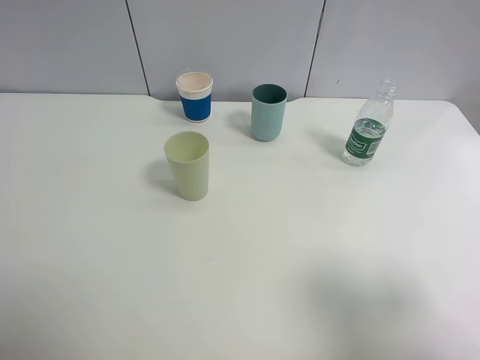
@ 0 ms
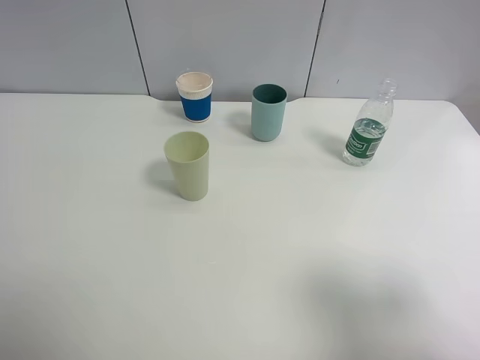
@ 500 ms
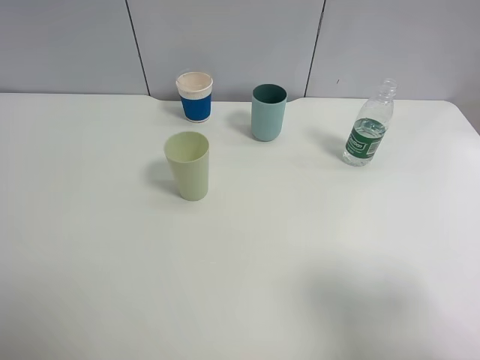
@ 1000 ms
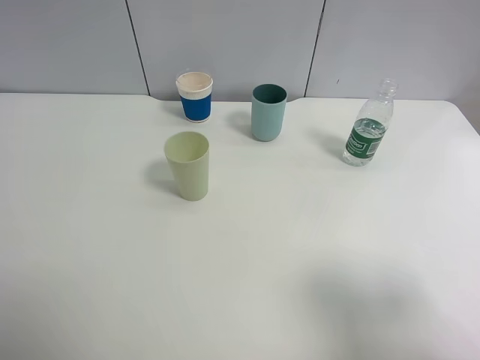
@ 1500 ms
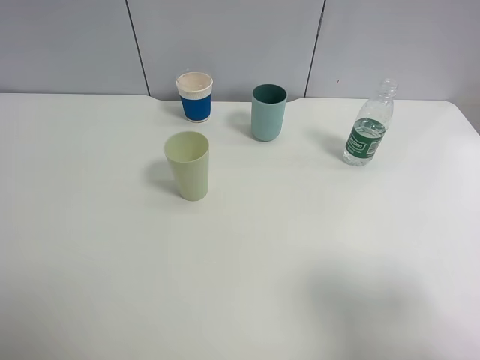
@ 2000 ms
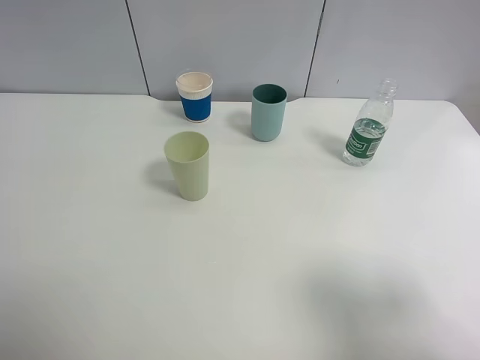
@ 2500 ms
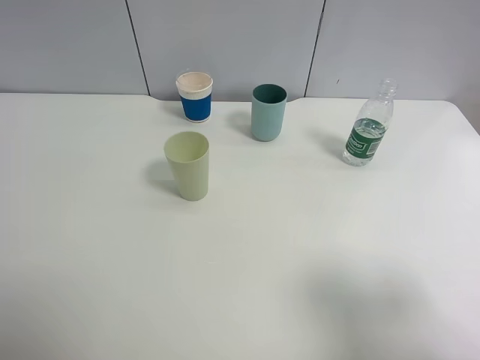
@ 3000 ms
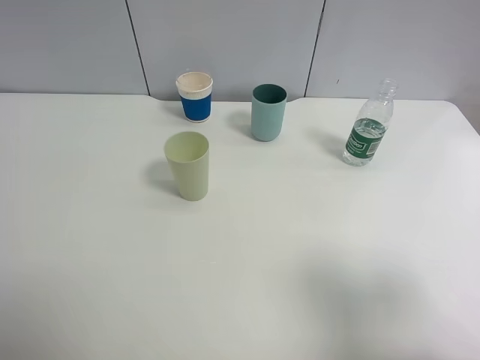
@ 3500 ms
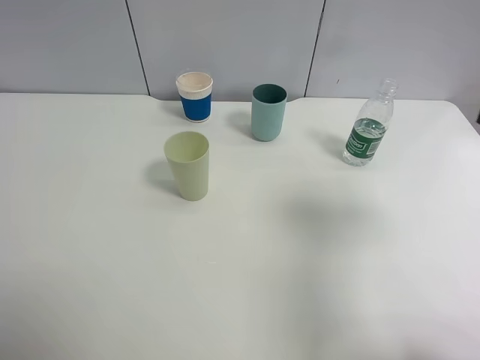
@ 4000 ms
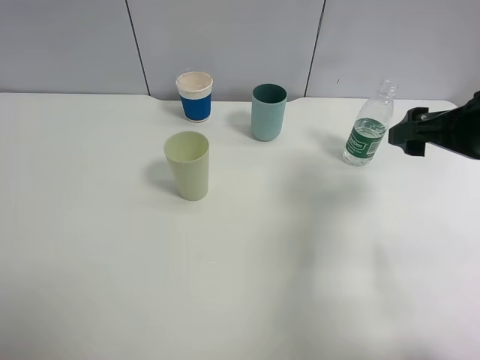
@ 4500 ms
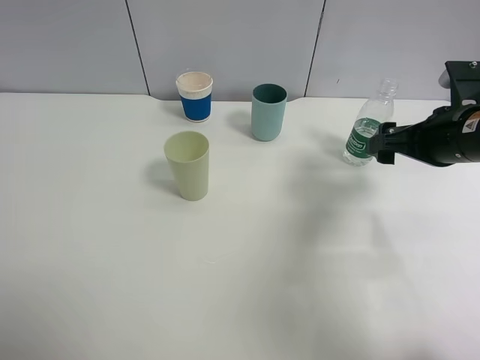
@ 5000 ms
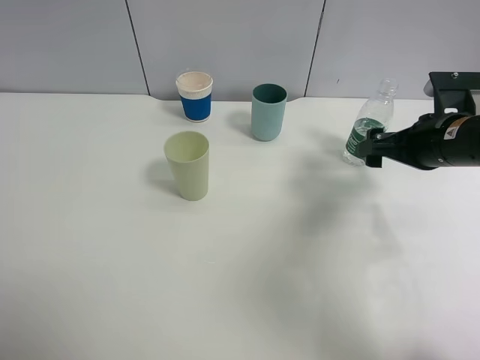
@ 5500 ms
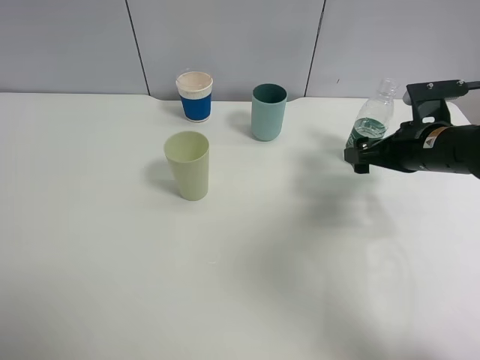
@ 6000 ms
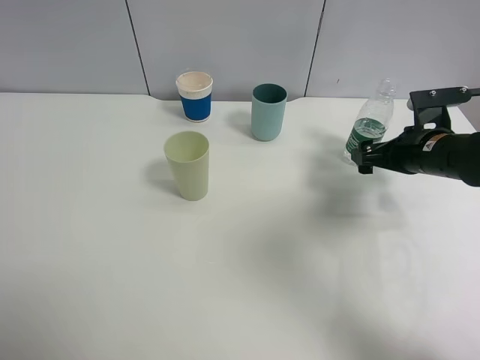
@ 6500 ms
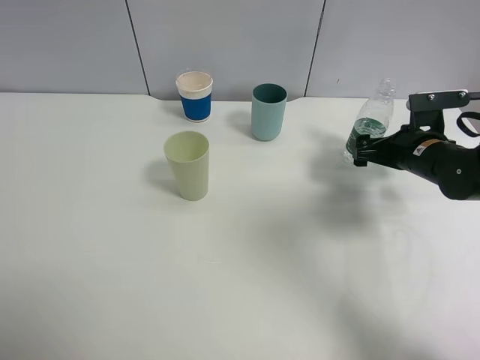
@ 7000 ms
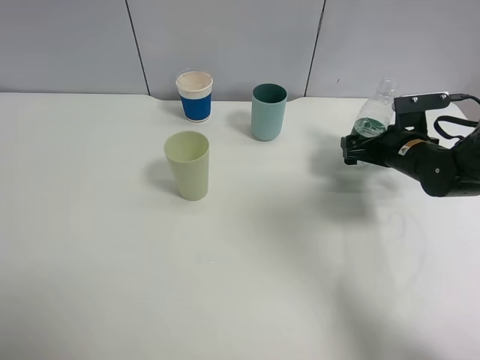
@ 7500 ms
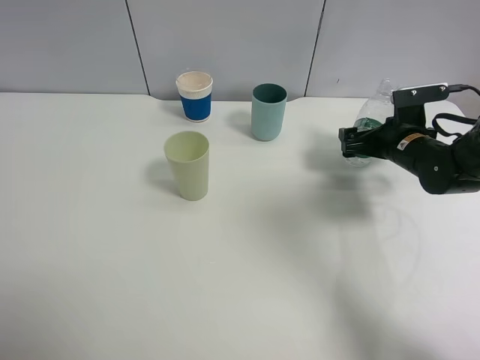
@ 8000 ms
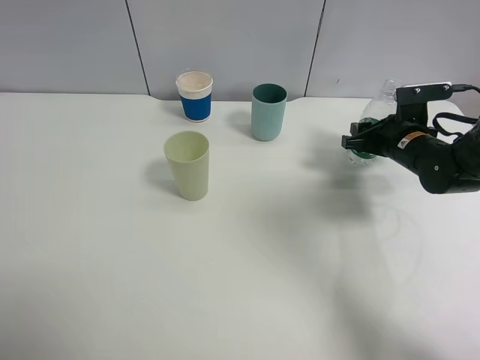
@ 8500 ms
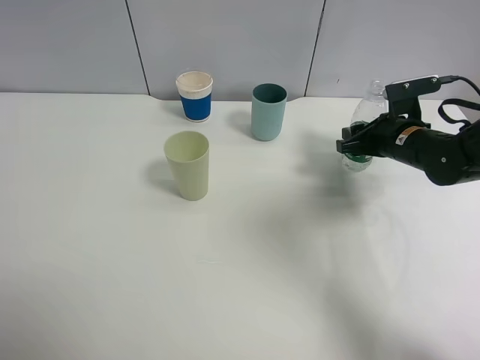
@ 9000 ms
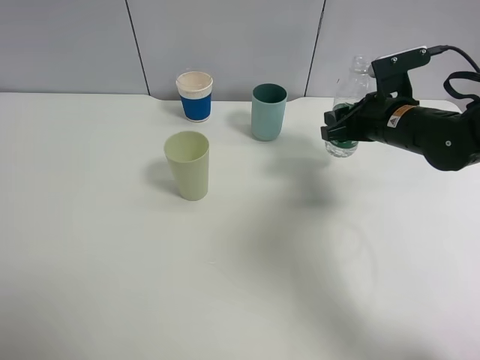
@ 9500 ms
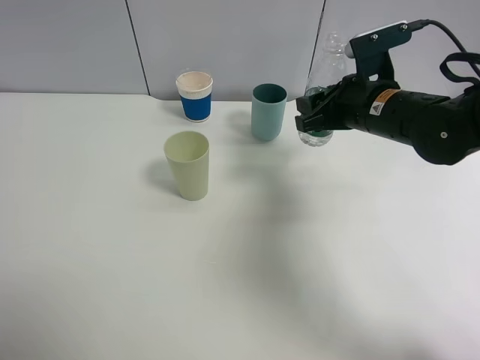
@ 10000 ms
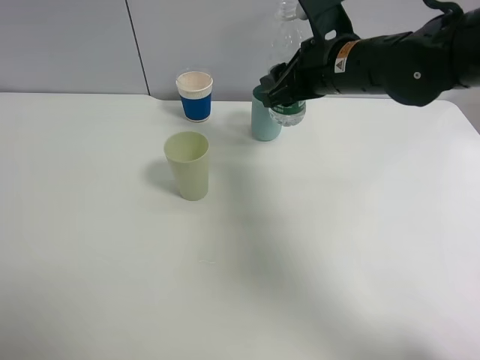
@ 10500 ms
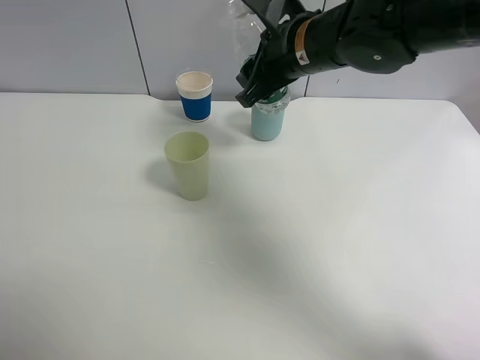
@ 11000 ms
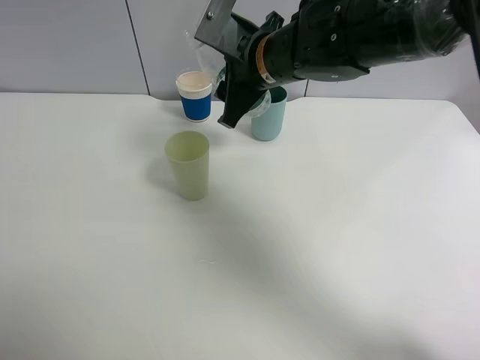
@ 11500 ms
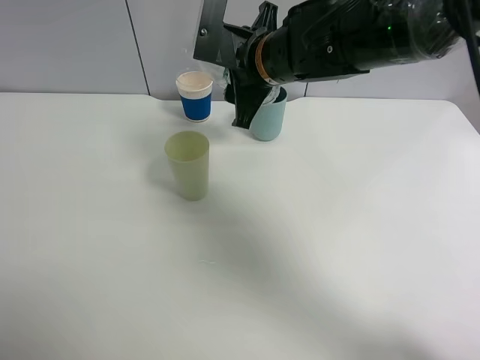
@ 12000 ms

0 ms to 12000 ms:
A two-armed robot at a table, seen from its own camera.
Task of the whole recording: use a clamp to hold the bottle of the drink, pour the beverage into a random cup, then clamp the cup containing the drink and pour the drink into another random cup.
Step, 0 ms to 9500 ms: Pick up the water bottle with right gripper.
0 ms to 2000 ms: The two grippers keep their place.
2000 ms to 4000 ms: The right gripper moves forward, some 15 cm.
4000 ms to 6000 ms: The right gripper travels downward and forward by some 20 cm.
6000 ms to 8000 ms: The right gripper travels forward and downward by about 10 cm.
8000 ms to 10000 ms: The right gripper is displaced to the left and upward by roughly 15 cm, and closes up.
10000 ms to 12000 ms: The right gripper travels to the left by approximately 15 cm.

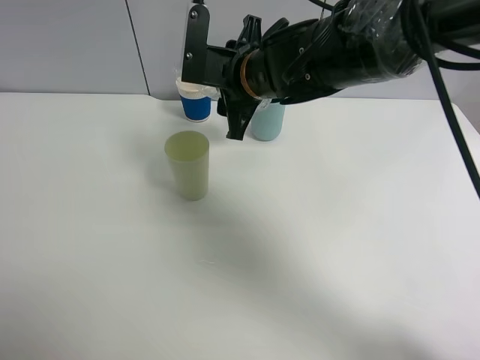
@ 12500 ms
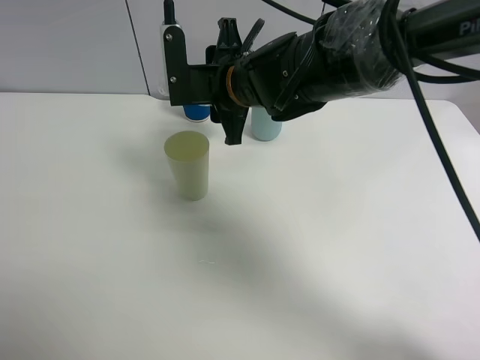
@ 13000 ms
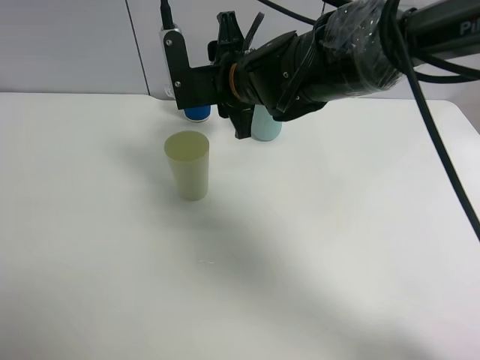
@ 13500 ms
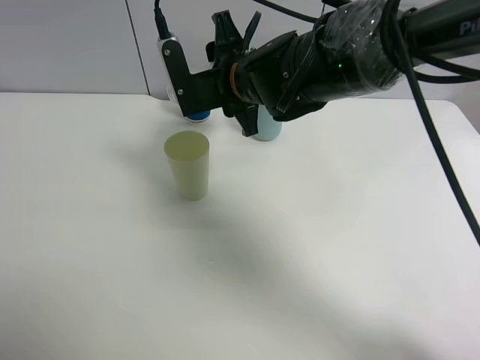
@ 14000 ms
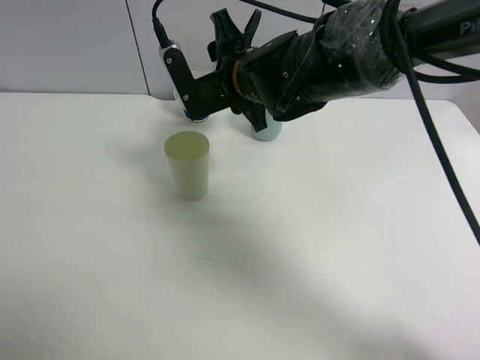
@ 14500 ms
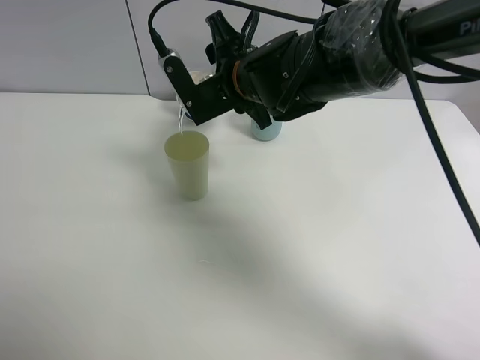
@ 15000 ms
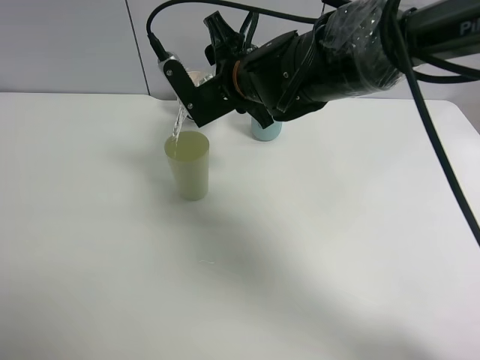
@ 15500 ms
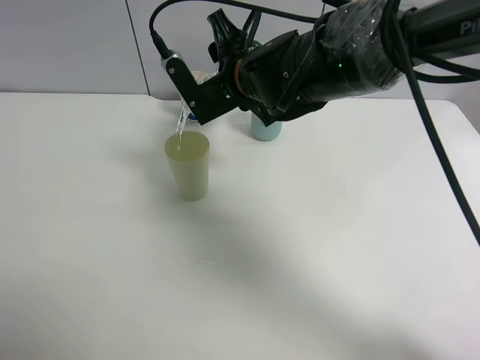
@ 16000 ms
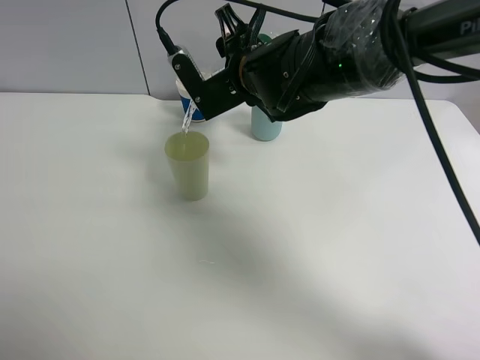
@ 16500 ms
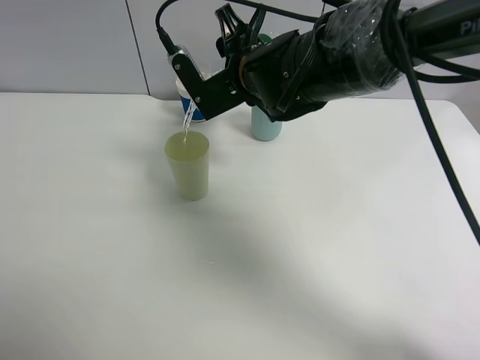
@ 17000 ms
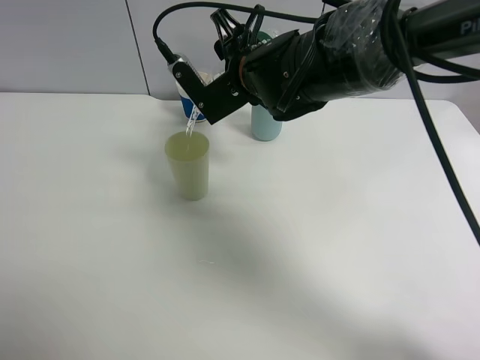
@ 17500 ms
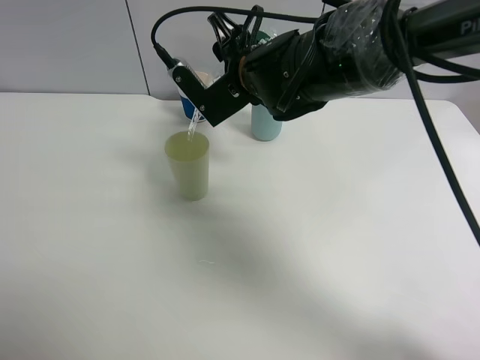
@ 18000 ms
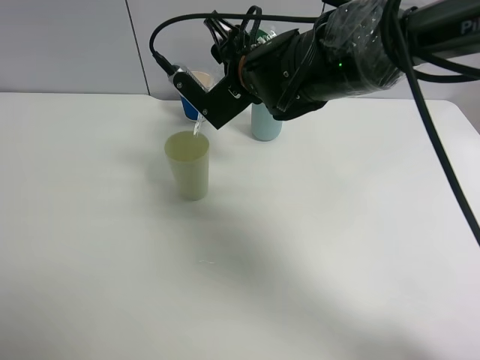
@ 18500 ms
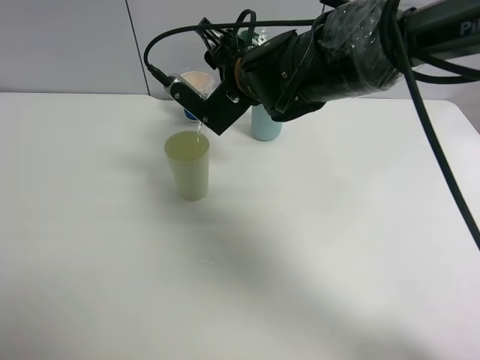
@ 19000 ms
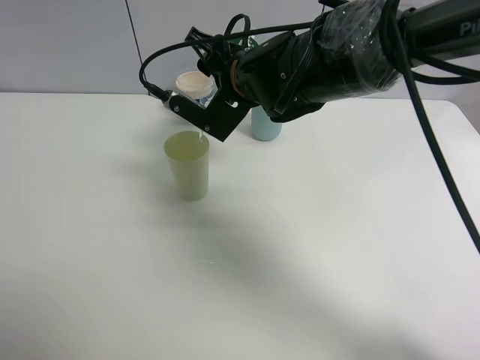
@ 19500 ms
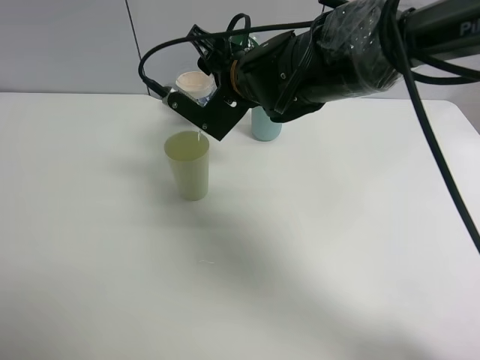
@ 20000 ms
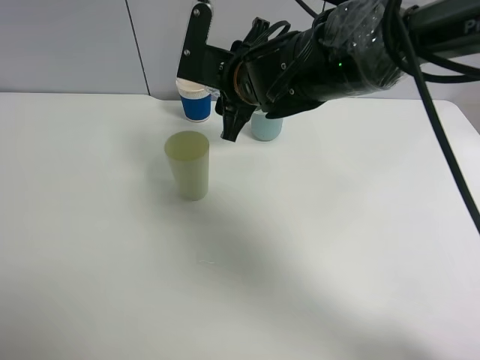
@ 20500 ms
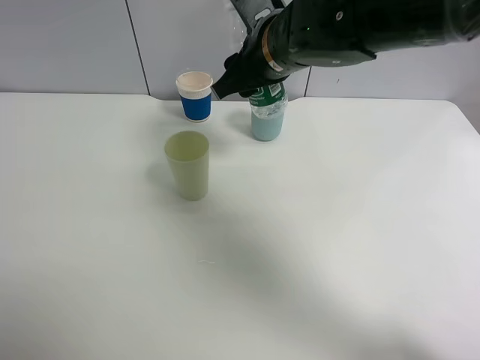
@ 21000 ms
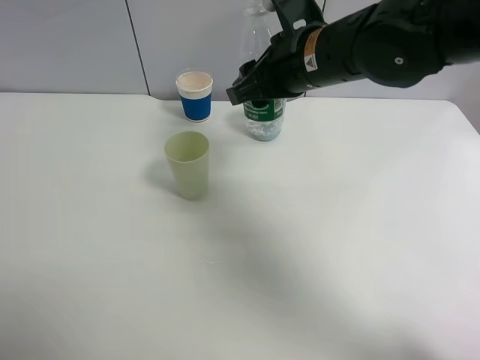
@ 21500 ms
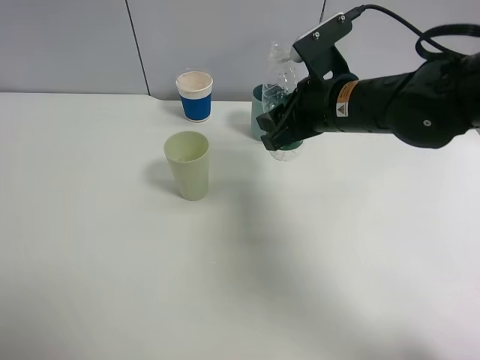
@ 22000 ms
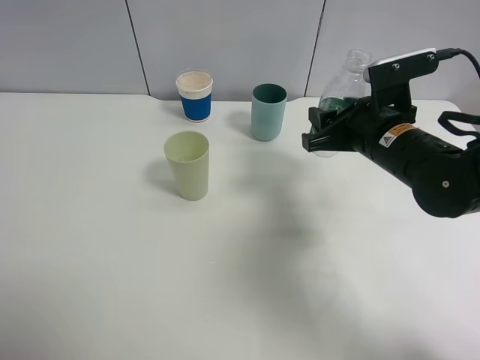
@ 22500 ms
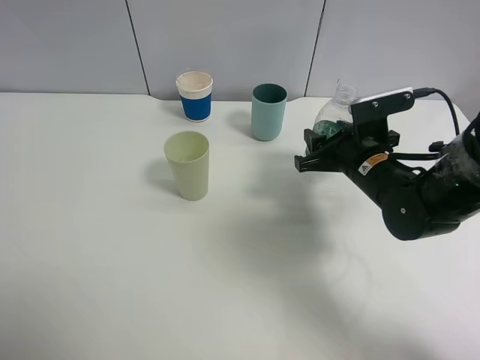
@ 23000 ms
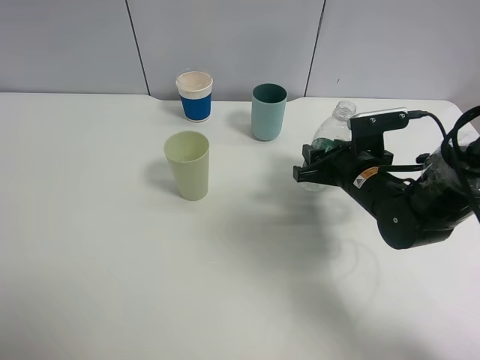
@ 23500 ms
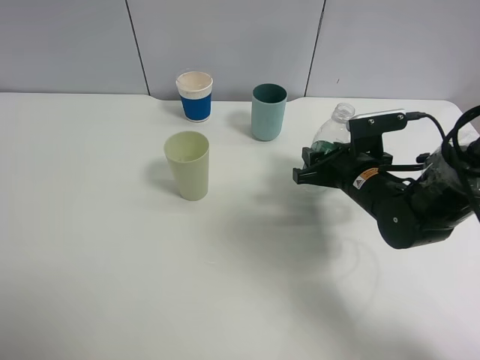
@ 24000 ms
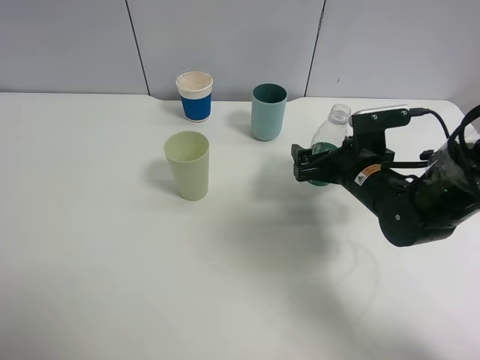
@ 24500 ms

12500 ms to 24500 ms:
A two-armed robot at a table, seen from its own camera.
Task of the whole recording: use a clamp to hold the bottle of the drink, pour the beverage into a random cup, then clamp the cup containing the drink and pour the drink into another random cup.
Step, 12500 ms to 20500 ms: Pour water into the green plastic cup with right gripper.
14500 ms to 16500 ms: The grippers stay close to where they were, moving slightly.
16500 ms to 18500 ms: The grippers stay close to where they were, moving slightly.
20500 ms to 22500 ms: The right gripper is displaced to the right by about 15 cm.
22500 ms to 24500 ms: The right gripper travels downward by roughly 5 cm, and opens its fingers.

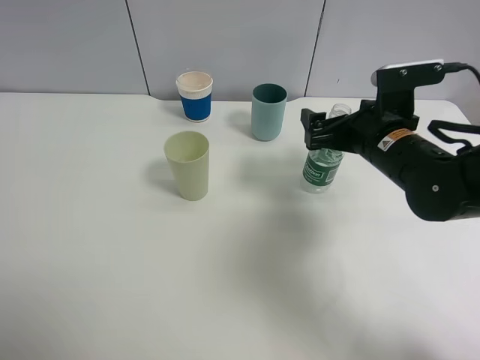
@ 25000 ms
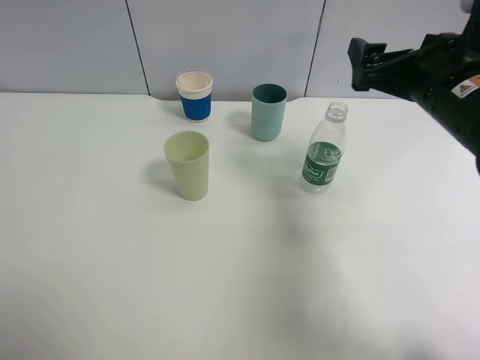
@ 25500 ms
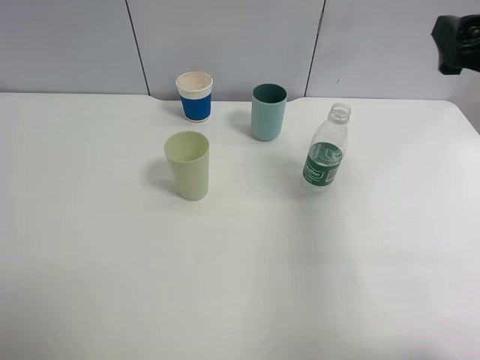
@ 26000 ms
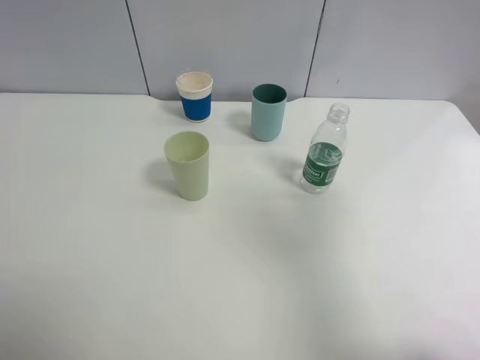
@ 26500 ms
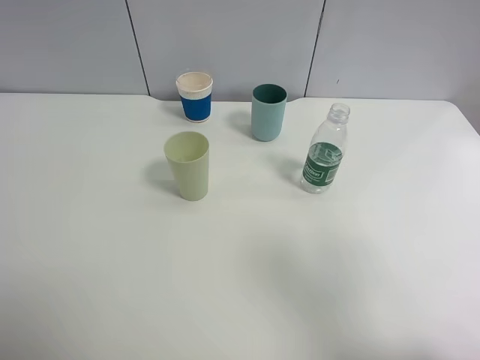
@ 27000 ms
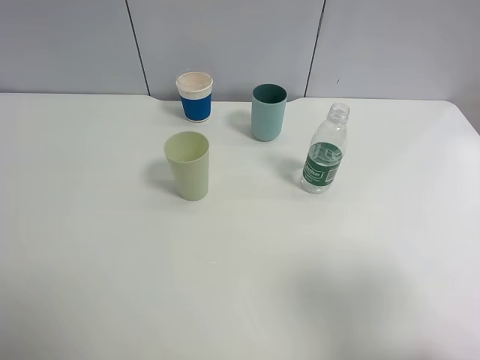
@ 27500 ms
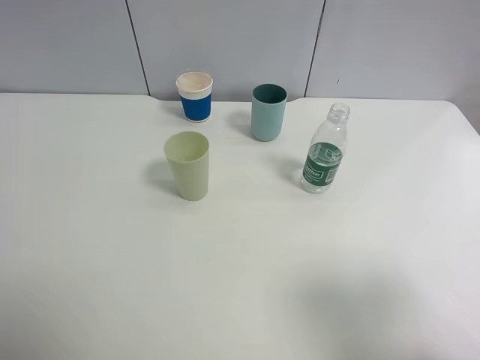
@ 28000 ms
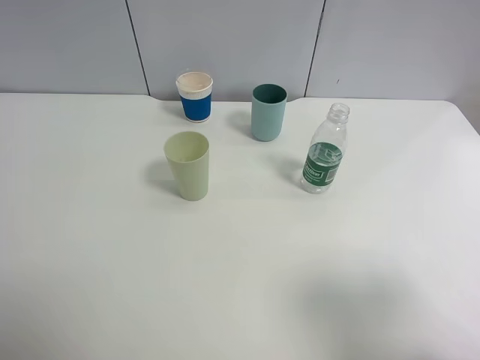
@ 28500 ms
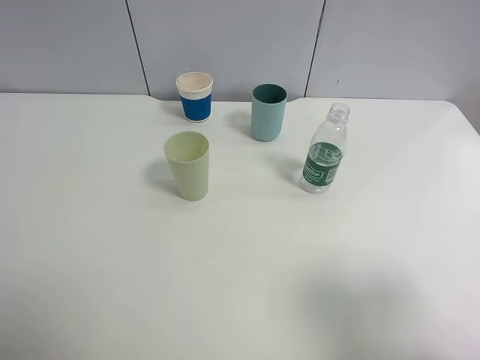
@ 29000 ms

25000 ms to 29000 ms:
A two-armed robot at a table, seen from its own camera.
Task of the whole recording: use a clamp to hold the bottle of the drink, pour the beverage into a random cup, then clamp the cup containing the drink and pour the drink into another random cup.
25000 ms to 27000 ms: The right gripper travels backward, upward and to the right by roughly 30 cm.
